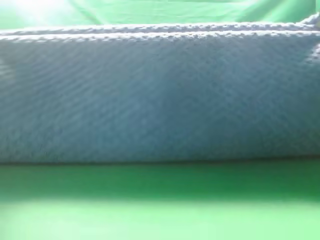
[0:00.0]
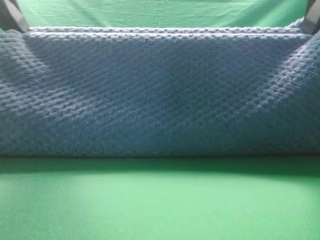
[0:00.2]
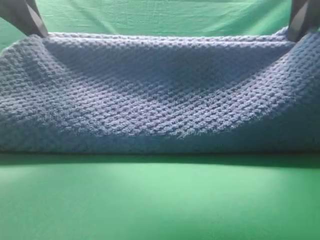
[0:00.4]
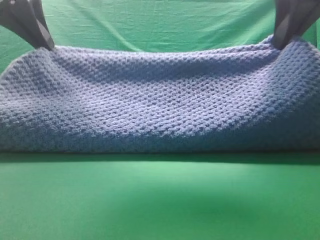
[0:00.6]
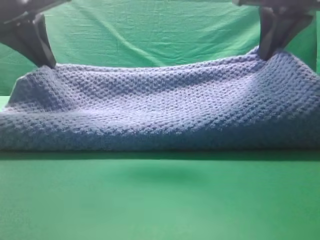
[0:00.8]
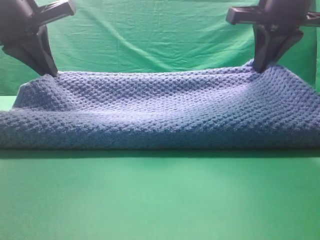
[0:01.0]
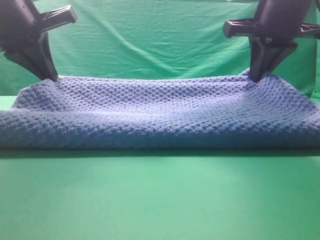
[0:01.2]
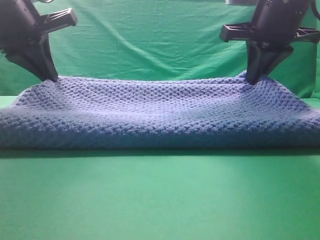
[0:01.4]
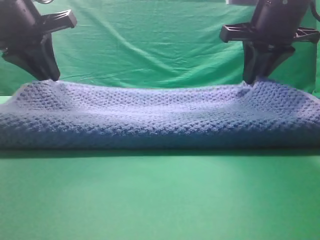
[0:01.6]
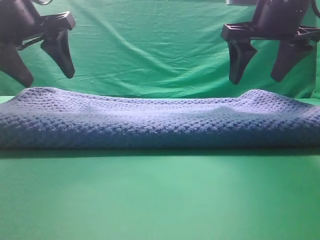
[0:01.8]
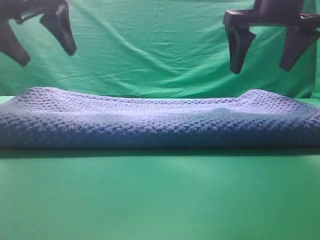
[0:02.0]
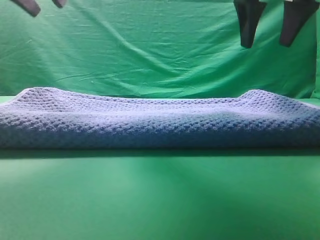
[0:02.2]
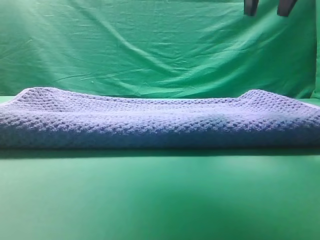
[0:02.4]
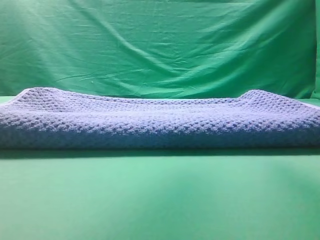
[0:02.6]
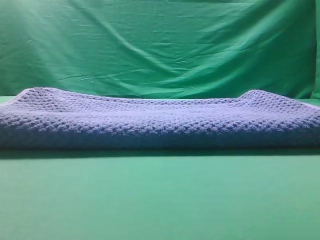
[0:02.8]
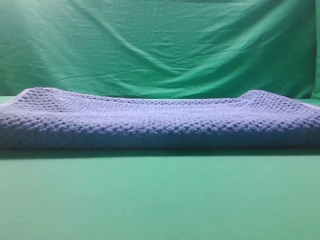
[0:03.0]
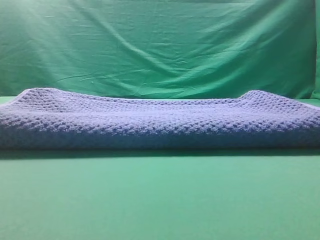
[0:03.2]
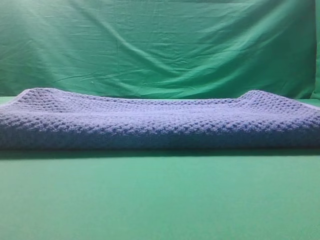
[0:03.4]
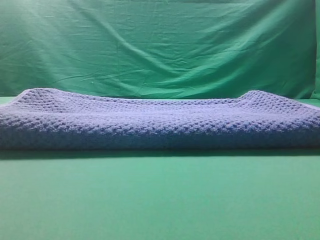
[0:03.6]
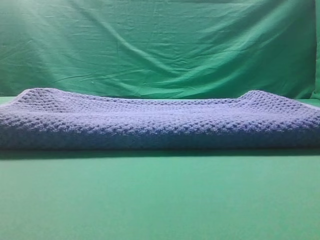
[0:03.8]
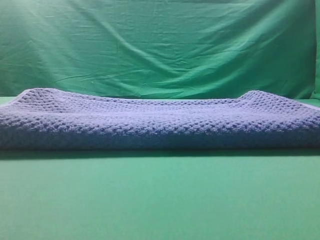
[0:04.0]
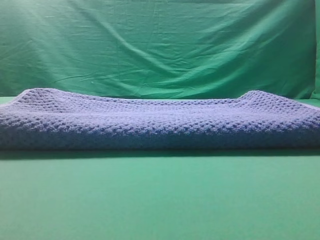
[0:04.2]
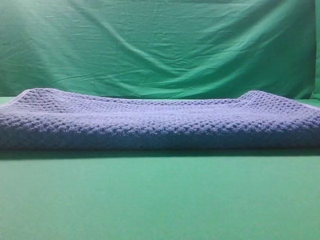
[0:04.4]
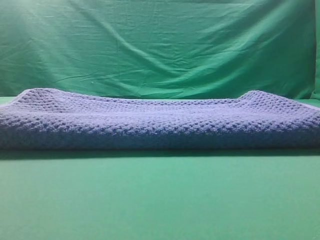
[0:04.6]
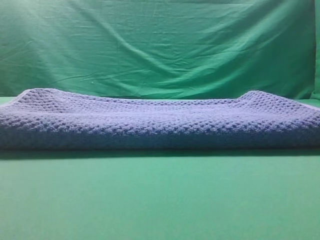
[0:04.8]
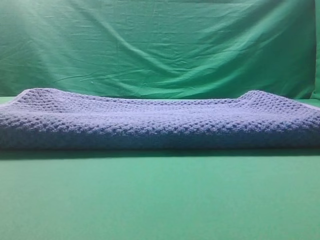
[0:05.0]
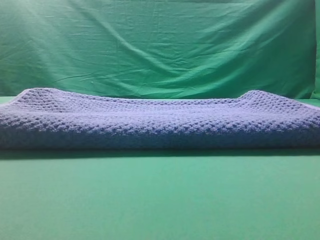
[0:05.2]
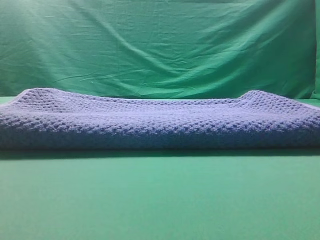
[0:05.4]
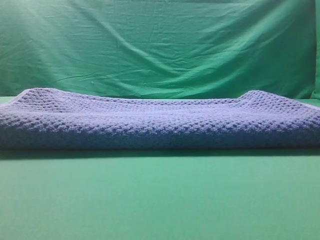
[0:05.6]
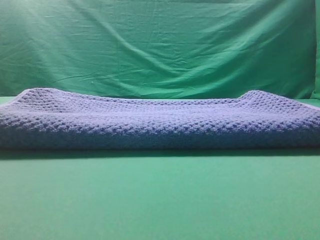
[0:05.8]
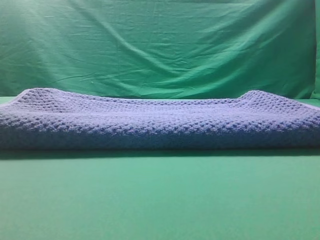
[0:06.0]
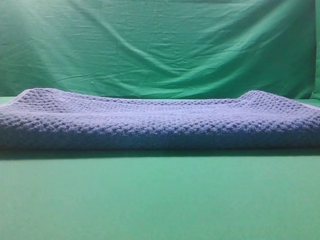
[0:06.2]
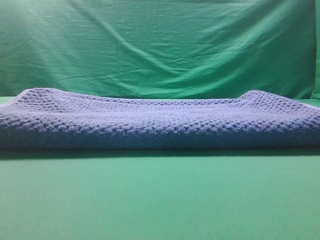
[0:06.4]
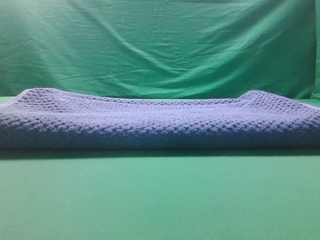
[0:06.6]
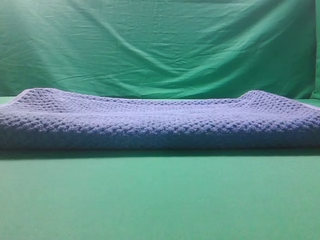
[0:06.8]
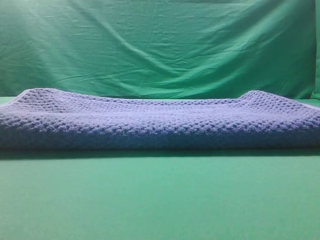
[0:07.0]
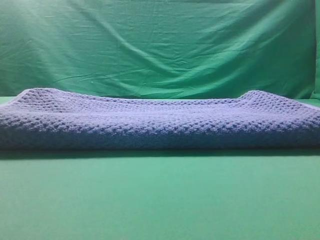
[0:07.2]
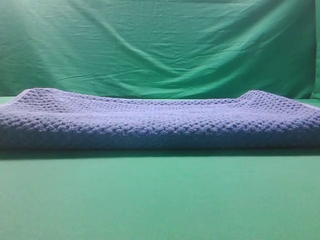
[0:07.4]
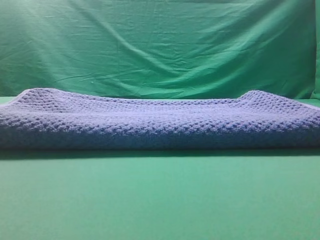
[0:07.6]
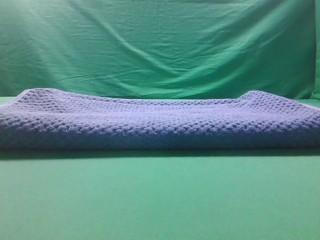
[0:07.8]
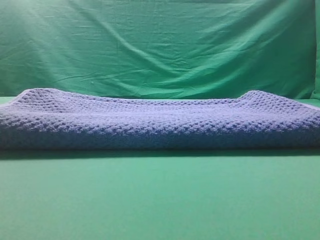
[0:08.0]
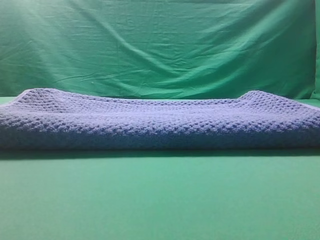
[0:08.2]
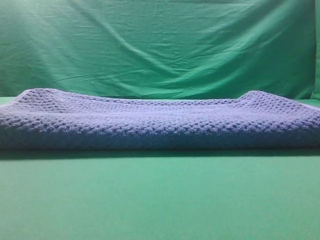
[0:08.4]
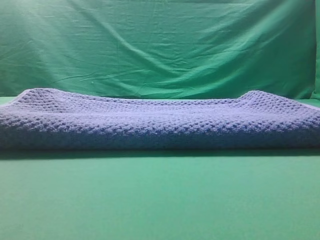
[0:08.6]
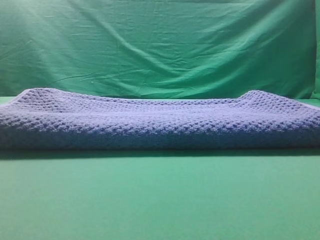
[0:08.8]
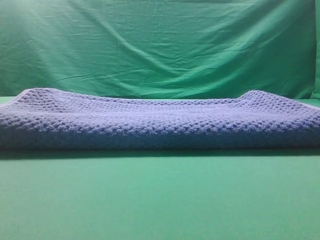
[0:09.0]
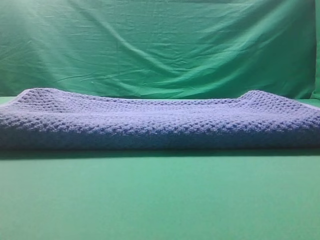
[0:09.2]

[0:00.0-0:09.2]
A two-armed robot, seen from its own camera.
Task of the whole recording: fold the towel on the table twice.
Step, 0:00.0 to 0:02.0: Fold the towel twice on the table.
